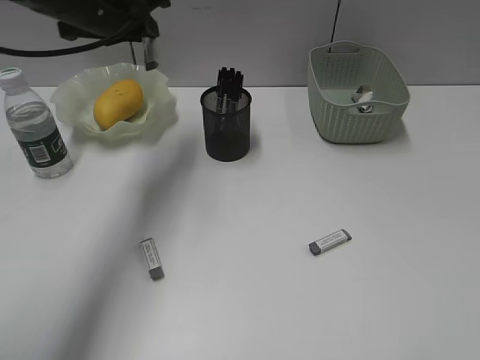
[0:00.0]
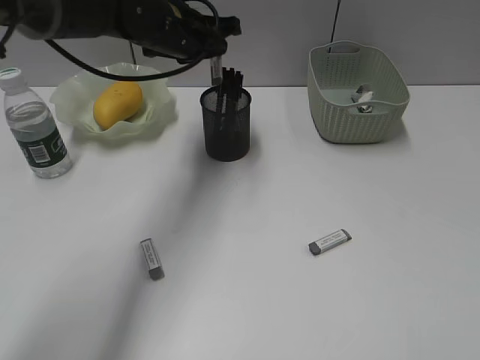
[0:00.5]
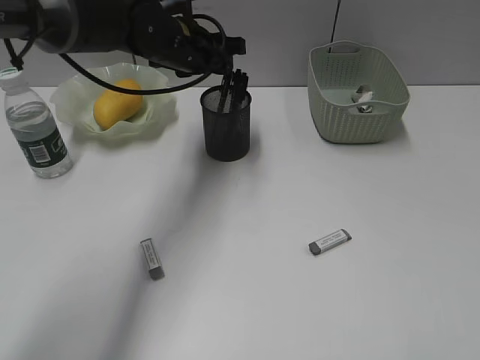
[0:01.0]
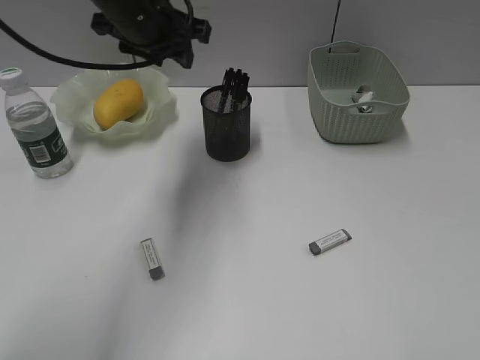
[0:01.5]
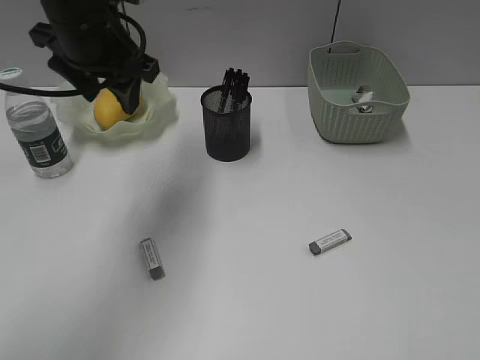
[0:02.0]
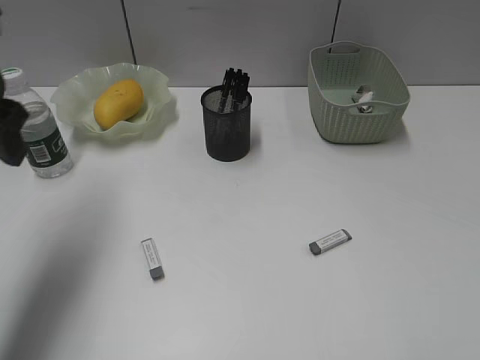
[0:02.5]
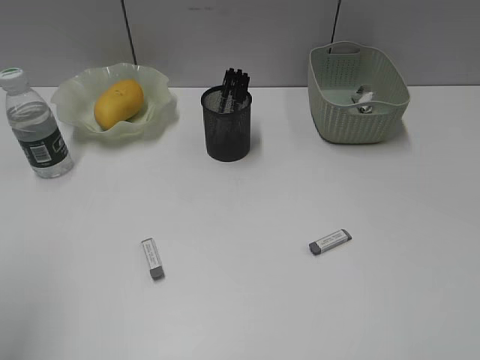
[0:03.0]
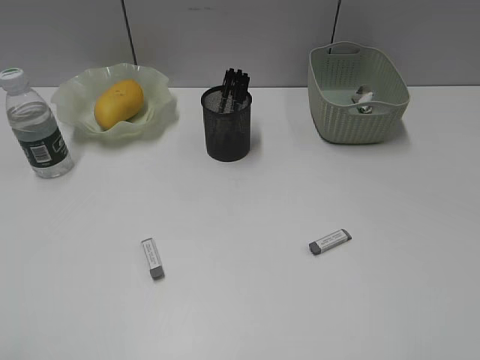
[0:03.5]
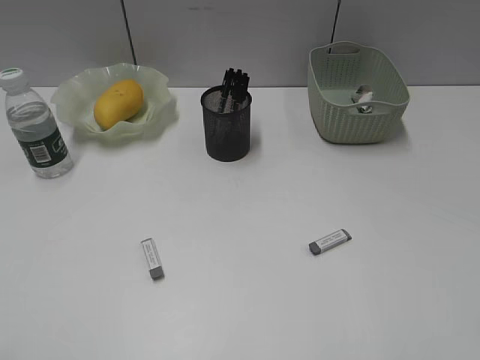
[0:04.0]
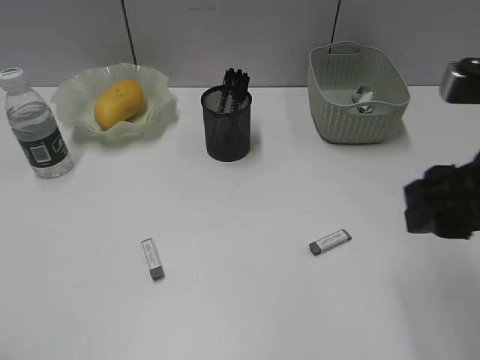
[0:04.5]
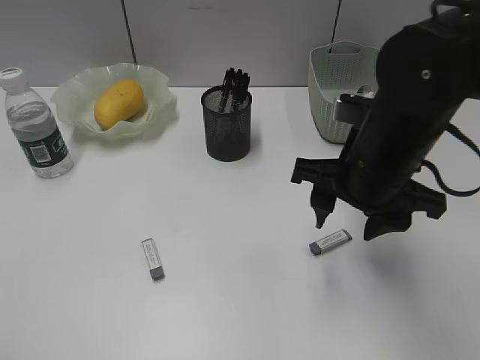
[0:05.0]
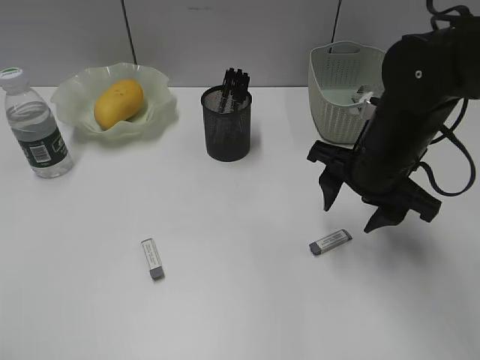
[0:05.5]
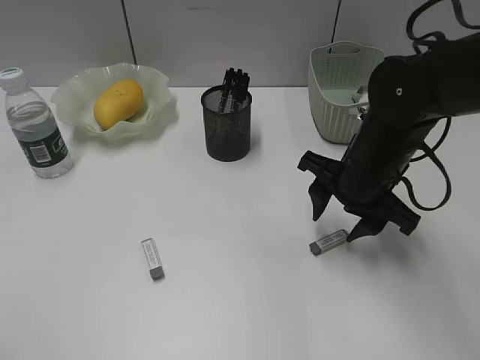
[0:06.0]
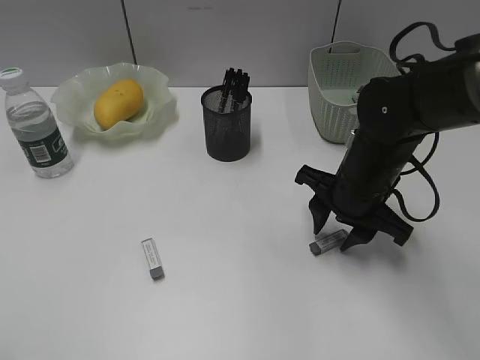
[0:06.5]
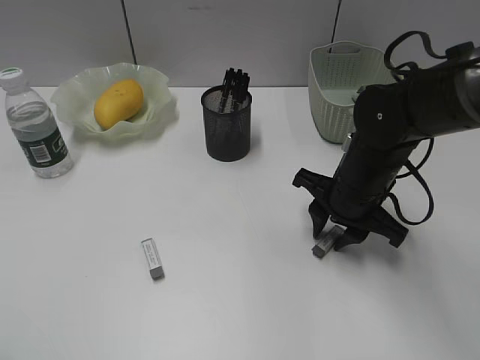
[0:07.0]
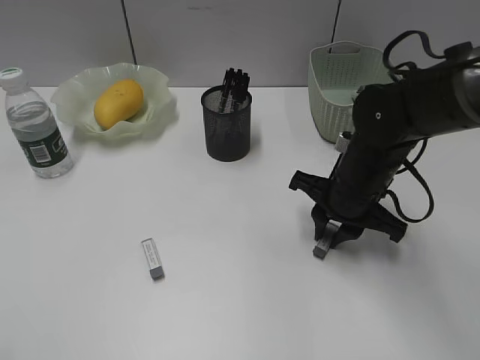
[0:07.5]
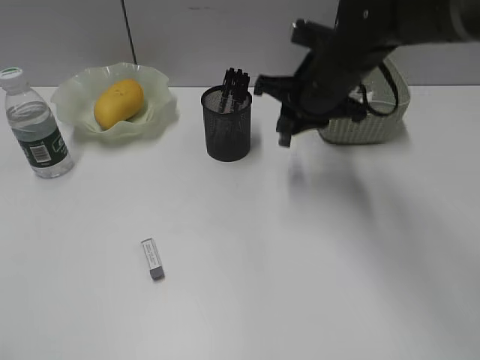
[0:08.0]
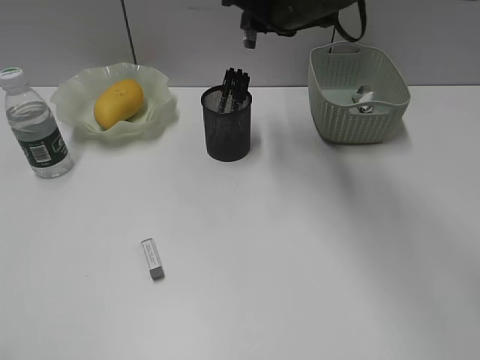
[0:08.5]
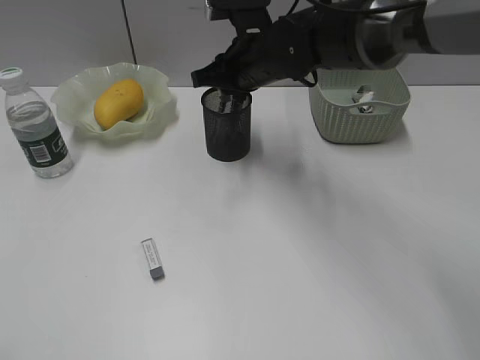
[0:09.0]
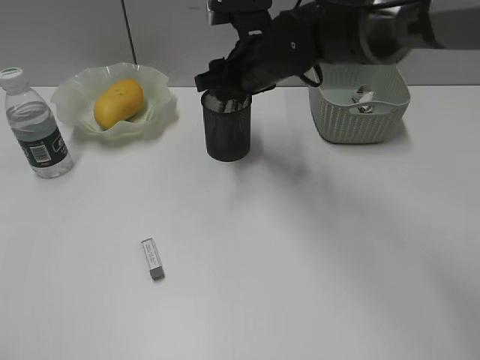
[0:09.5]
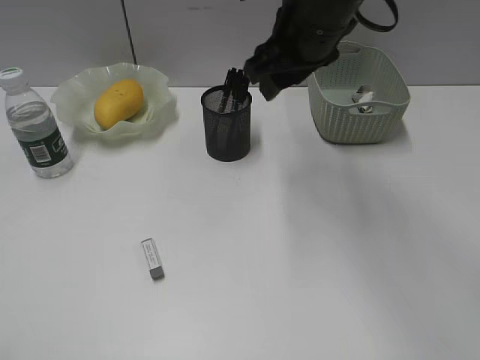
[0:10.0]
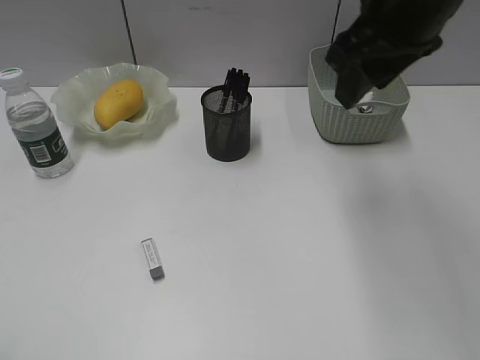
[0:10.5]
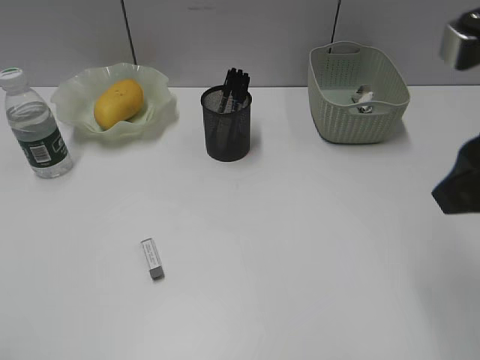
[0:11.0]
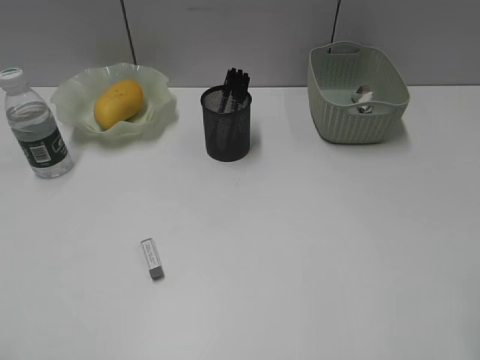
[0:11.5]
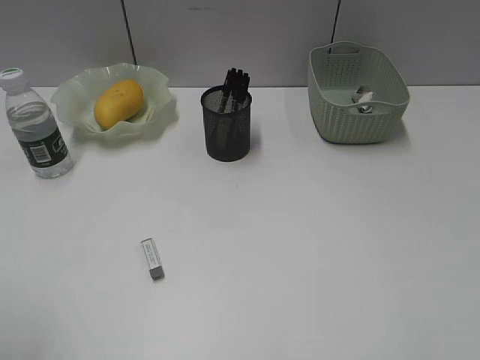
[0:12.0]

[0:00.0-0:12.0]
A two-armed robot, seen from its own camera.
Step, 0:01.5 to 0:07.0: Grasp the eraser with right gripper.
Step, 0:07.5 to 0:09.5: Place the eraser in pen holder with right gripper.
0:00.0 to 0:02.0: The left gripper opens.
0:02.0 to 0:04.0: The left gripper moves backward and to the left, about 40 cm.
0:04.0 to 0:06.0: The right gripper shifts some 30 cm forward, downward and to the left.
0:06.0 to 0:08.0: The right gripper shifts about 10 cm forward and upward, and closes up.
0:08.0 to 0:10.0: The right gripper swings up and down, about 10 cm each way, with 2 reversals, and opens its fingers.
0:10.0 to 0:12.0: The right gripper travels backward and to the right by some 35 cm. The left gripper heads forward, covering about 5 cm.

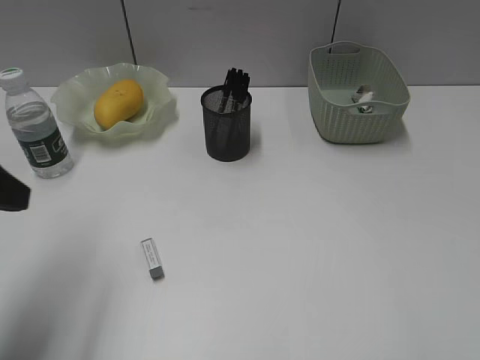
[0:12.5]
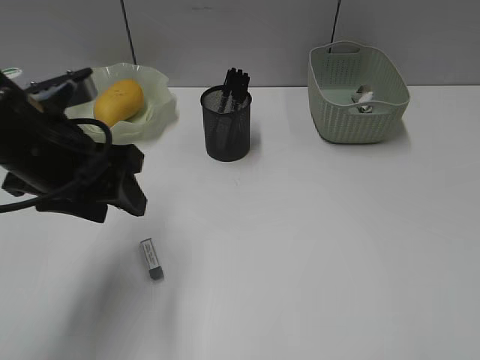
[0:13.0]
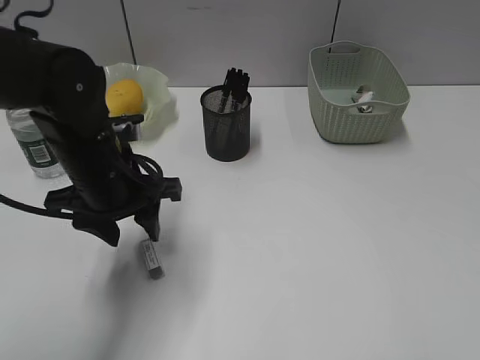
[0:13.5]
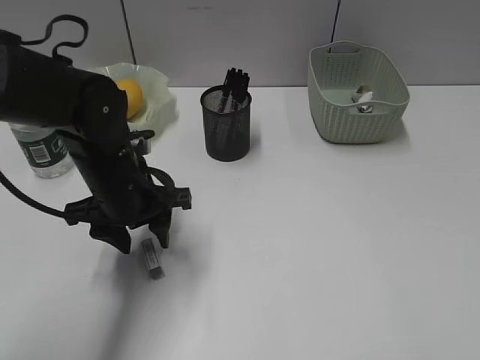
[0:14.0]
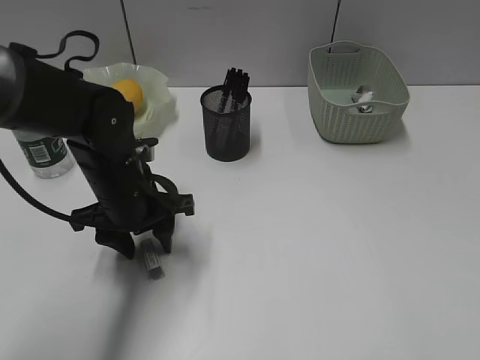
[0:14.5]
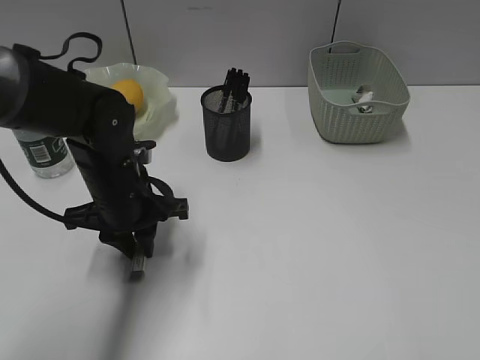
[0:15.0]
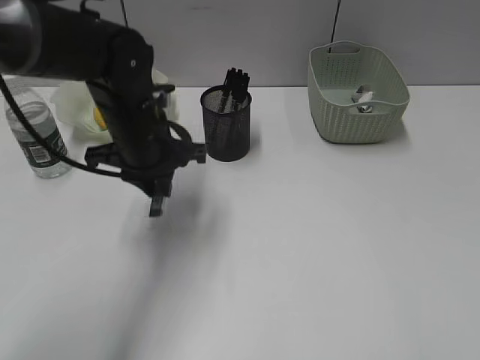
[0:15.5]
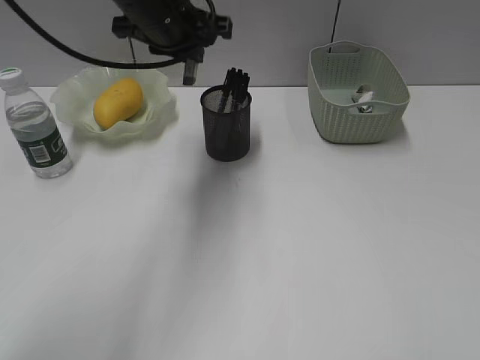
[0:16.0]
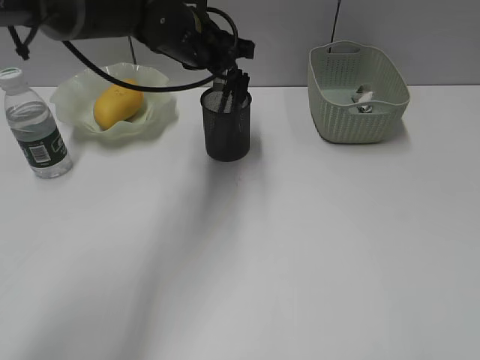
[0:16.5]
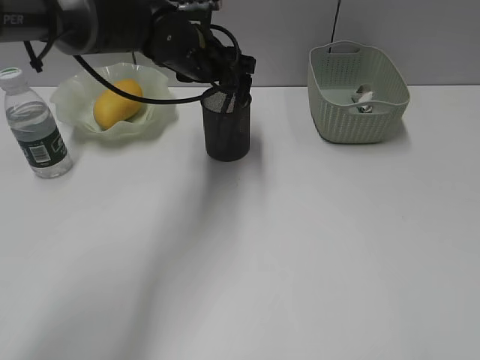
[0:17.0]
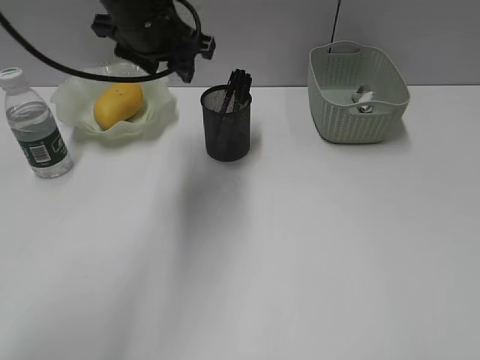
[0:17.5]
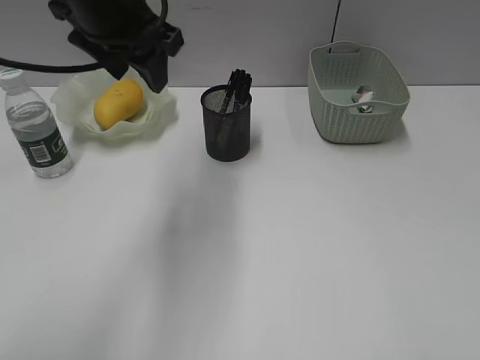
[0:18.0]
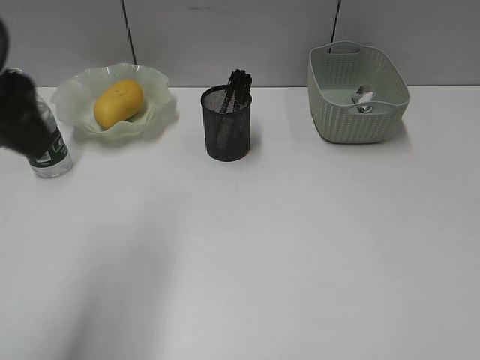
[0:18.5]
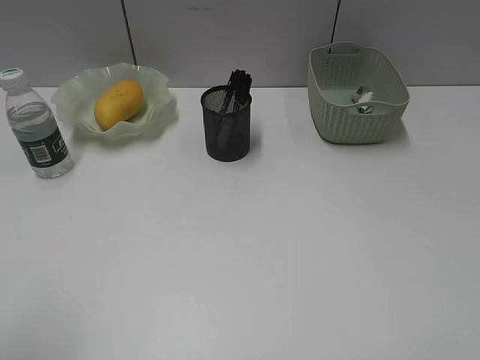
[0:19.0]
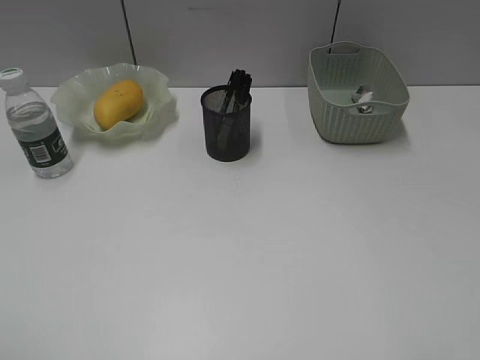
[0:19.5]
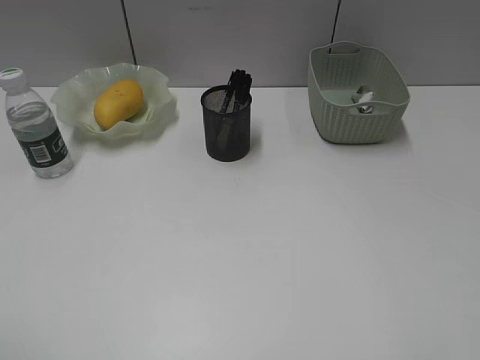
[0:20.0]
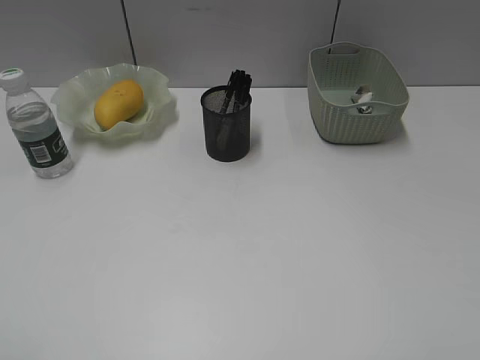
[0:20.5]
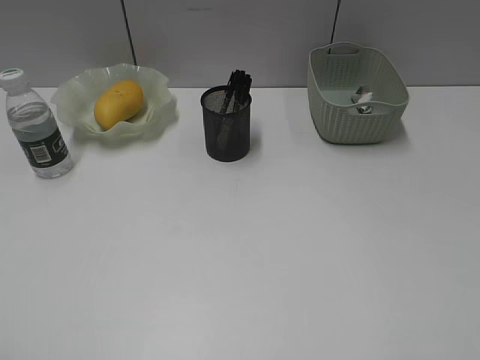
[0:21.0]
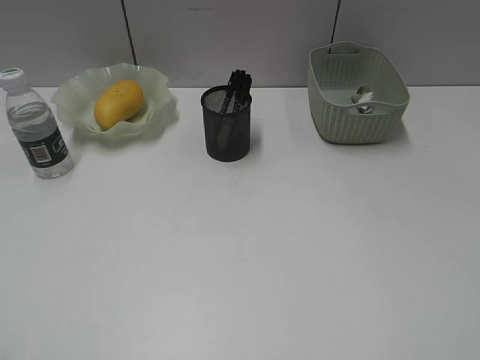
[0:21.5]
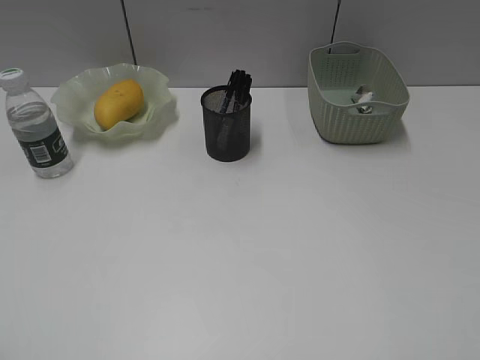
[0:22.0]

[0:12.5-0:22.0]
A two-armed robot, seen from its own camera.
Step, 0:12.5 to 0:15.0: Grasp the eraser with left gripper.
Step, 0:15.5 to 0:17.0: Place the eraser in pen holder with left gripper.
0:12.5 to 0:14.5: The left gripper heads downward, to the right and forward, covering approximately 20 cm.
0:14.5 to 0:16.5: The left gripper moves forward, upward and to the right, some 20 cm, and closes its fingers.
0:16.5 to 0:18.0: The left gripper travels upward, backward and to the left by roughly 15 cm, and opens up.
0:18.0 to 0:20.0: The left gripper shifts roughly 35 cm backward and to the left.

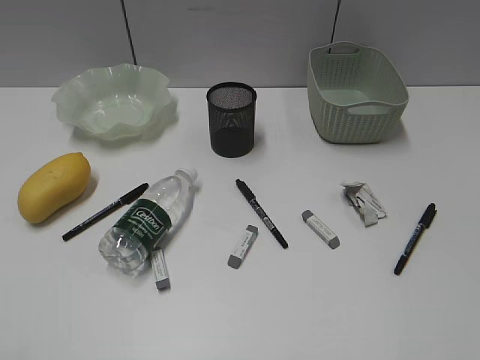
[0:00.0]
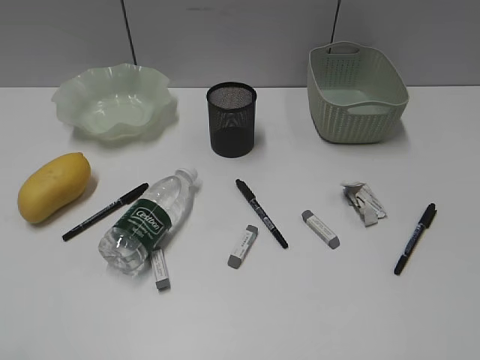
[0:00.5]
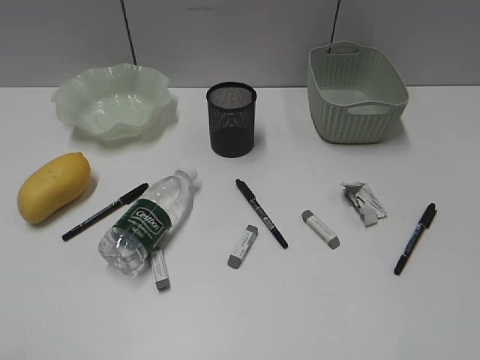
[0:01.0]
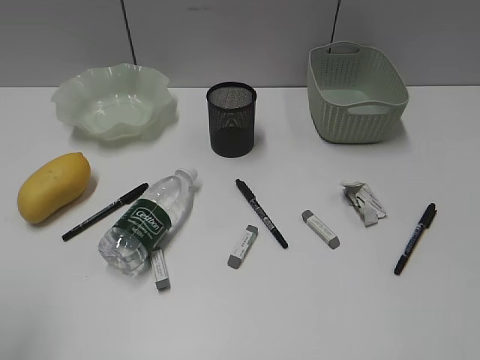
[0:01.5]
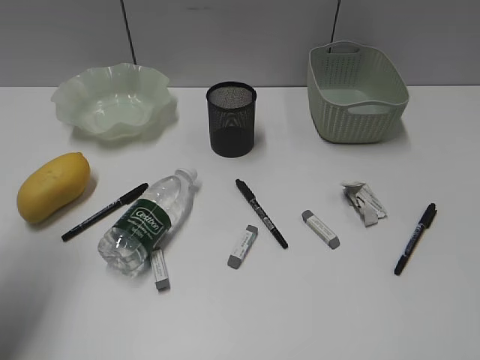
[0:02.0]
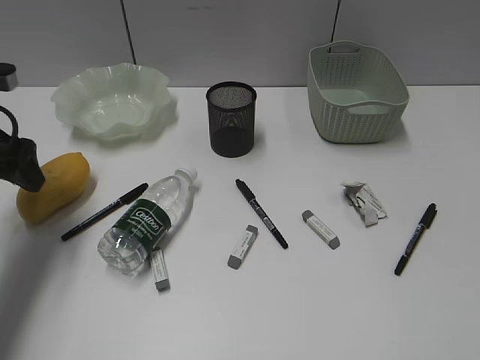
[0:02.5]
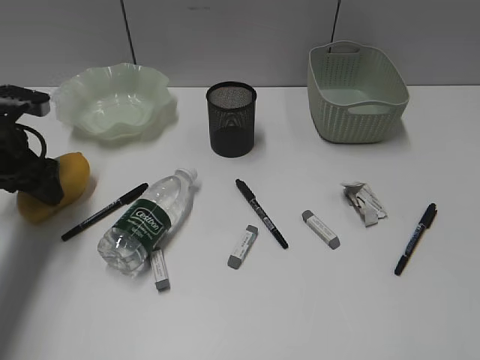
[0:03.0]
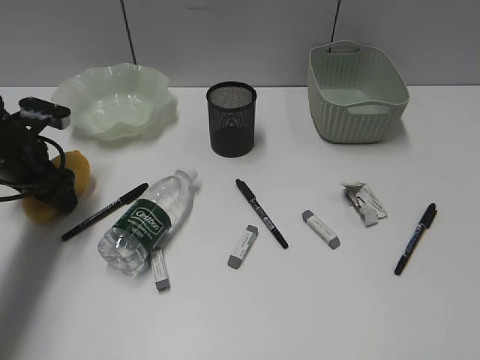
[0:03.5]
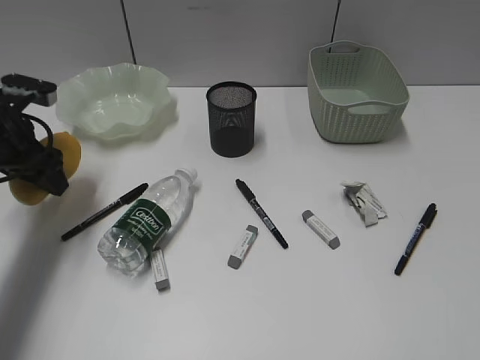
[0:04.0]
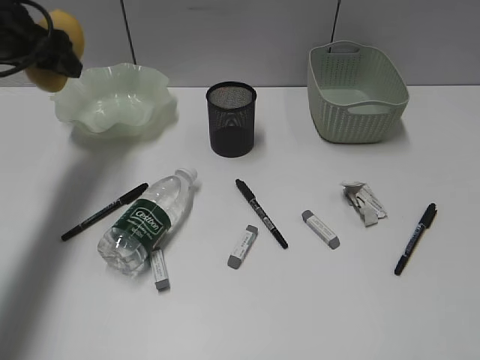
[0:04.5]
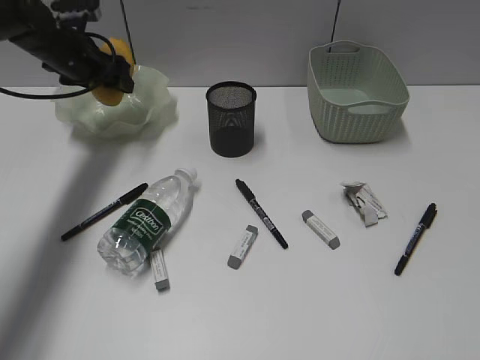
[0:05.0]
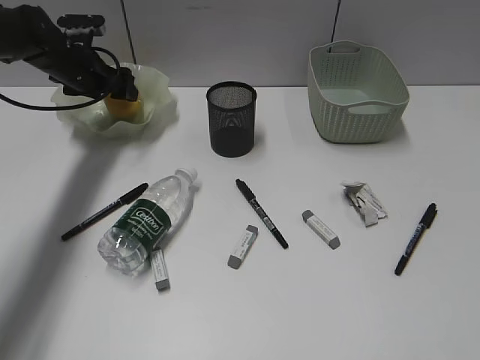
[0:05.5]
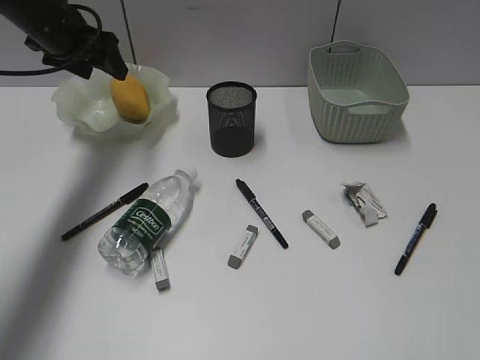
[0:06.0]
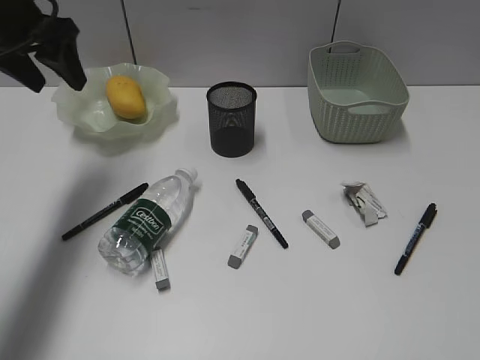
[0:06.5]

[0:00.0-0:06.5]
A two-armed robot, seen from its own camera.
Step, 0:02.5 to 0:03.5: Grasp the mango with left gripper.
Step, 0:04.0 to 0:05.5: Place the mango in the plate with left gripper.
0:02.0 to 0:04.5: The left gripper shifts approximately 20 cm forward.
0:04.5 to 0:06.5: The left gripper travels downward and back again, roughly 10 cm each way.
